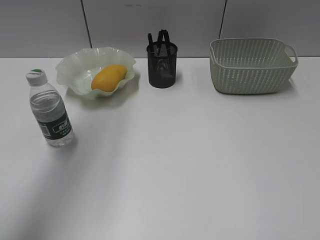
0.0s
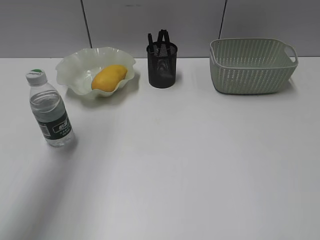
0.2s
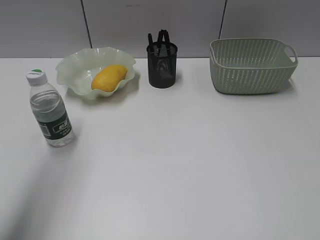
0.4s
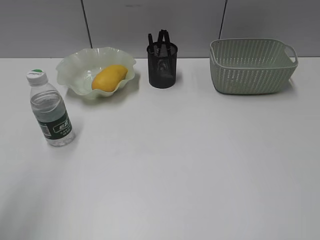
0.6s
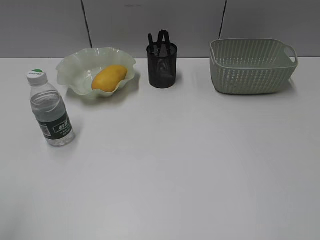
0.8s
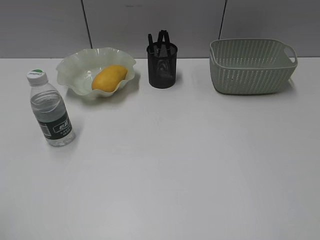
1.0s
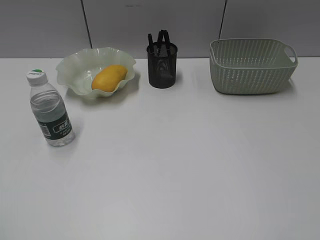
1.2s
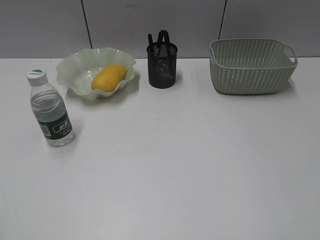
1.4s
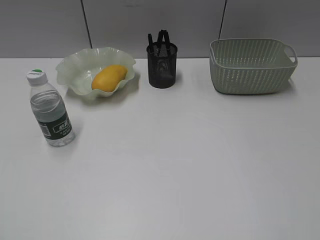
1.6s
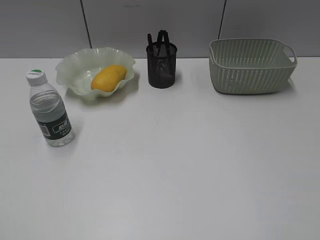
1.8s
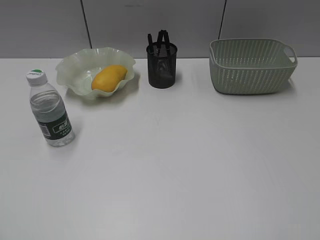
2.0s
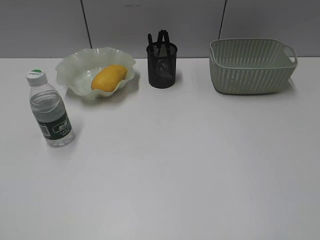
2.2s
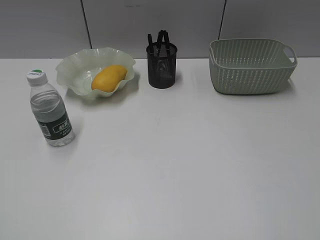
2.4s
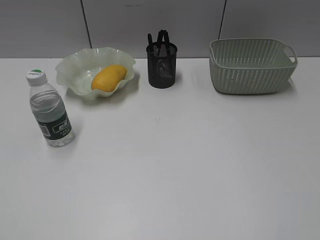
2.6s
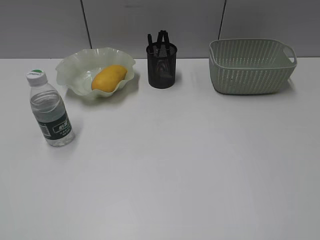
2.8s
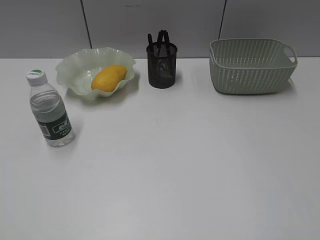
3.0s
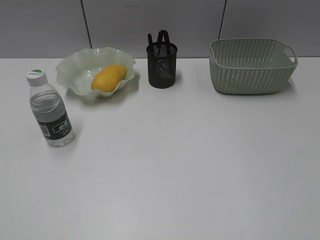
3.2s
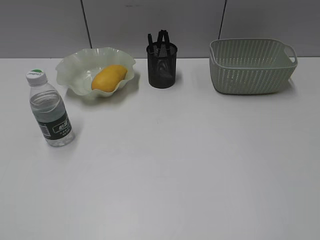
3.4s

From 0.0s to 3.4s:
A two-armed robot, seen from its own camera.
From 0.0s to 1.6s: The left gripper goes approximately 35 cm backward.

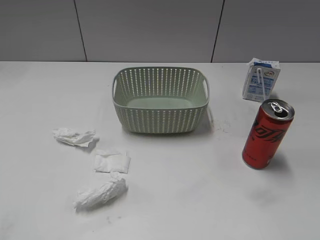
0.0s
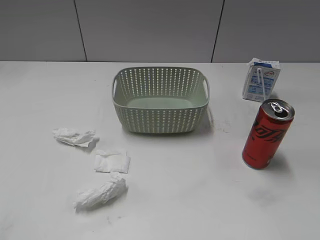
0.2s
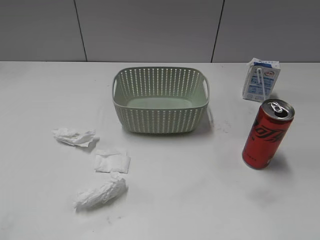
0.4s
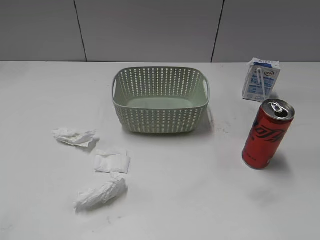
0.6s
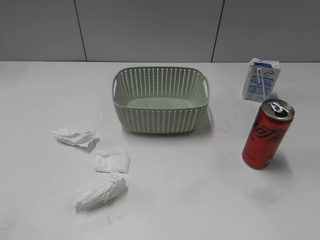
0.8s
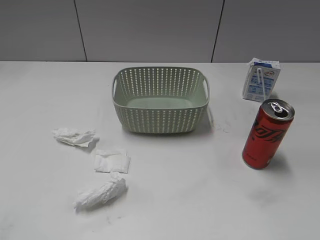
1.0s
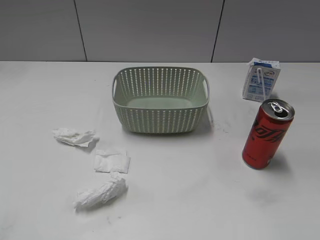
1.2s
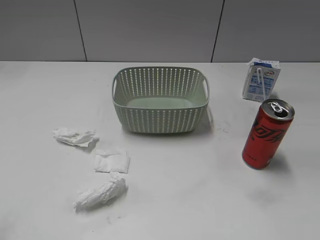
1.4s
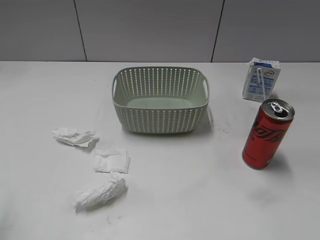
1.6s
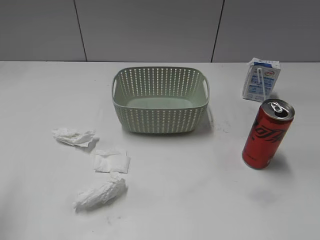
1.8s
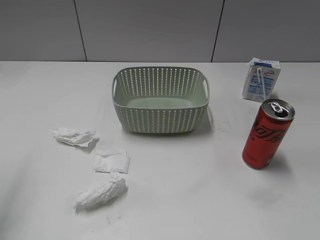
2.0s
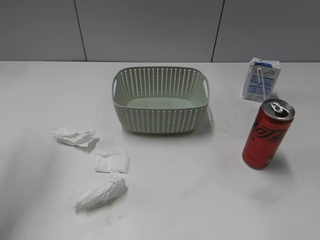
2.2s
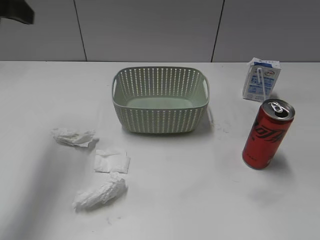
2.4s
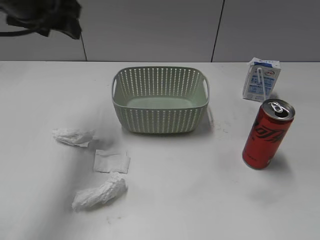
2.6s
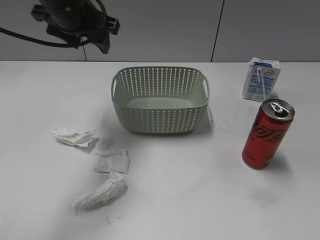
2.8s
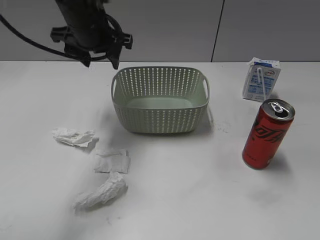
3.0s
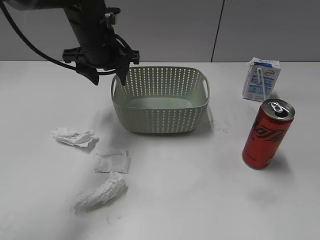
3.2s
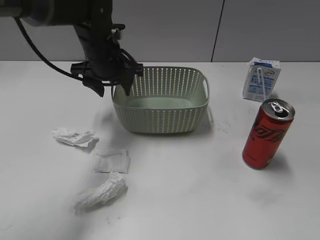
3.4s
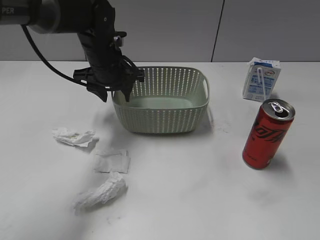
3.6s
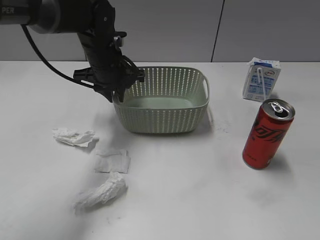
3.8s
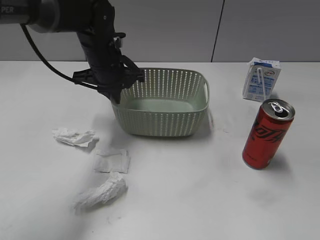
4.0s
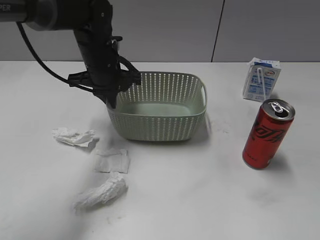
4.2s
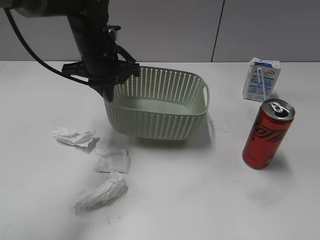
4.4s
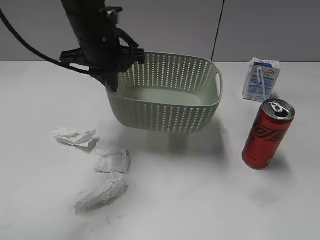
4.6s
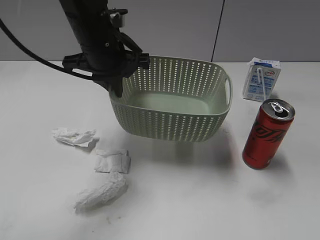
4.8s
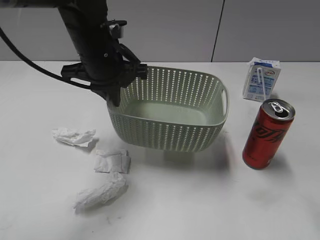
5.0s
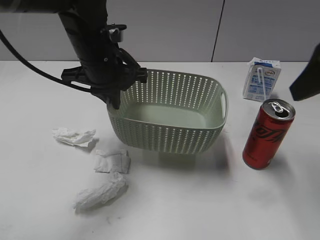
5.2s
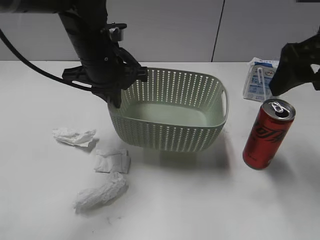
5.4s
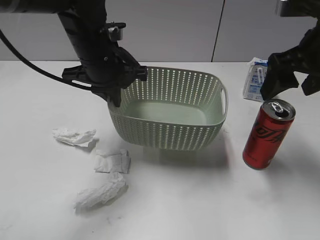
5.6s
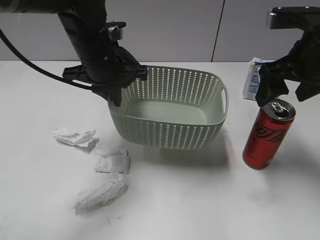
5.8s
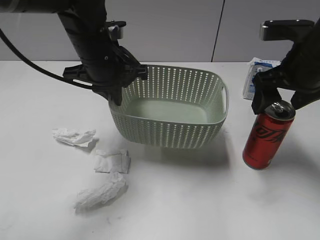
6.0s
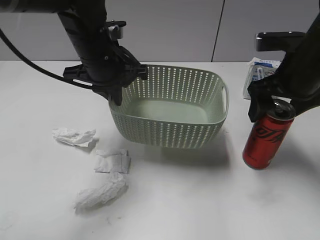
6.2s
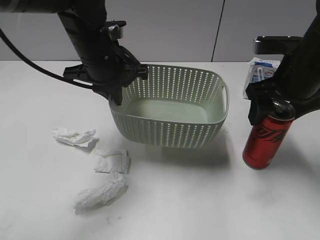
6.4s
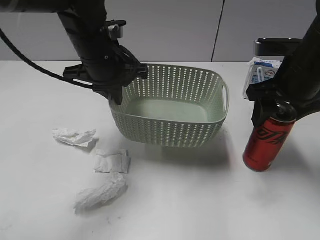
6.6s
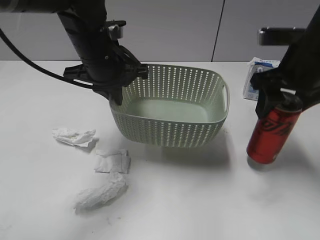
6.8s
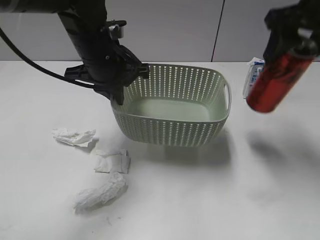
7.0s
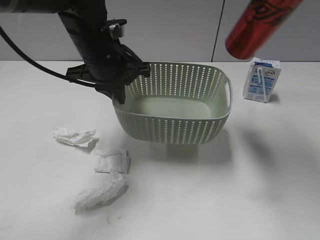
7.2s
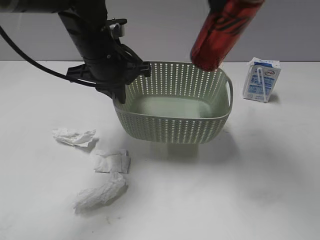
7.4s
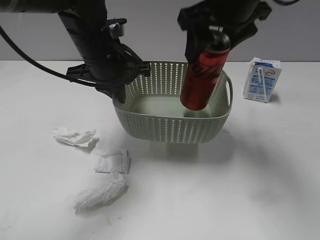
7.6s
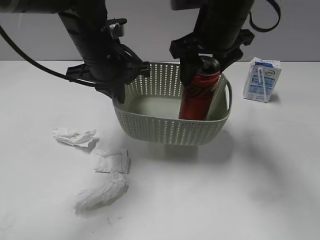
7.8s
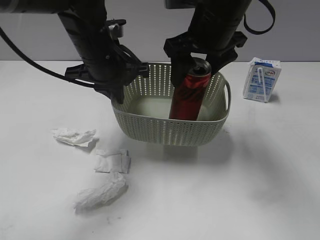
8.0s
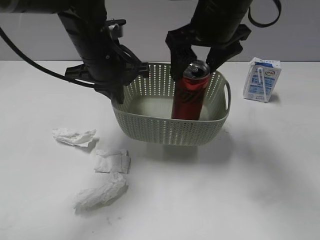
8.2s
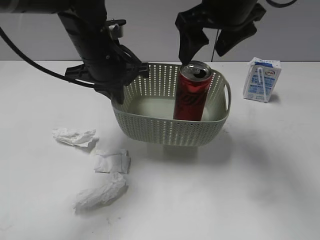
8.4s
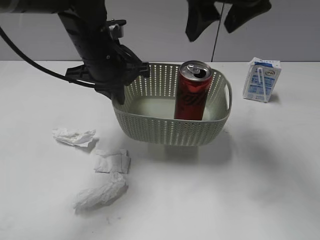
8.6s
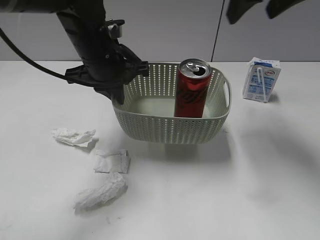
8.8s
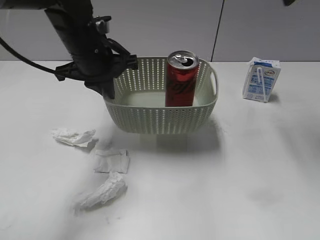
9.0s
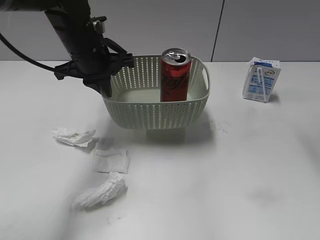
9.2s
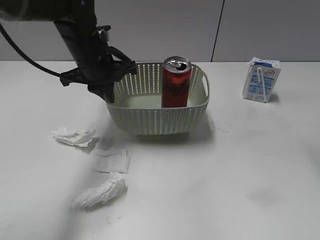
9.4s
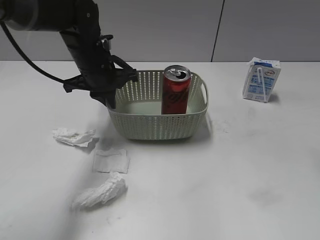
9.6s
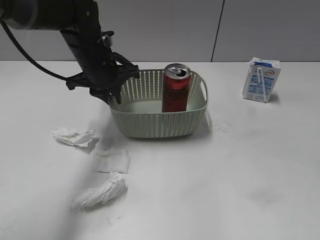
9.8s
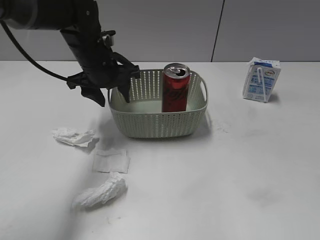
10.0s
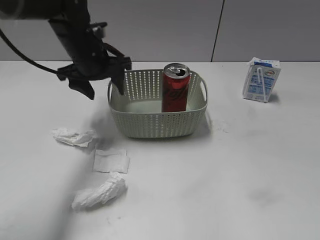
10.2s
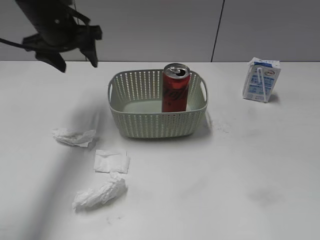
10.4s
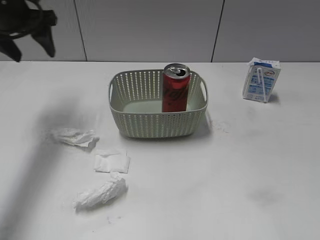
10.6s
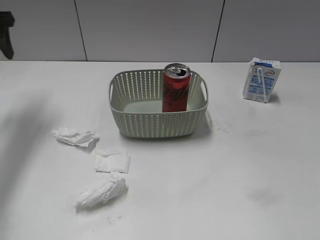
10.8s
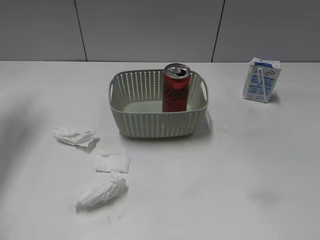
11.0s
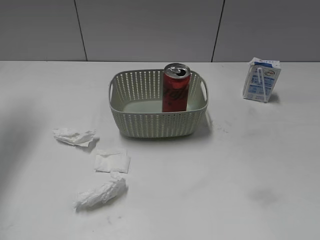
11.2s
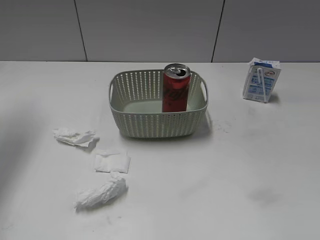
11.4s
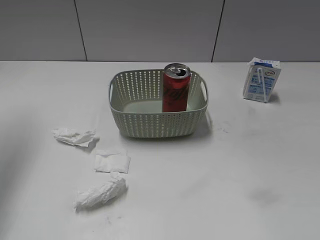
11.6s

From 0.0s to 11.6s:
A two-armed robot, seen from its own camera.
Step, from 2.4s to 3.8s: Grasp the basket with left gripper.
Step, from 4.0s to 5.0s: Lift the basket with left gripper.
Step, from 5.2s to 6.6s: Grasp the cola can with right gripper.
Step, from 6.8s to 8.2s: Place the cola can in the basket with right gripper.
Step, from 8.4s to 9.8s: Place the basket on the table with left gripper.
From 1.4s to 2.8s: The left gripper goes some 40 cm forward and to the right.
From 2.8s to 4.4s: The left gripper travels downward by some 10 cm, and closes up.
From 4.4s to 5.8s: The left gripper moves some 5 cm; the right gripper travels forward by approximately 30 cm, and opens.
From 5.8s to 7.2s: The right gripper is displaced upward by approximately 15 cm, and closes its fingers.
From 7.2s to 8.8s: The right gripper moves about 15 cm downward and comes back, and opens up.
From 8.8s to 10.2s: The left gripper travels forward by about 5 cm, and opens its fingers. Meanwhile the right gripper is displaced backward and to the right by approximately 20 cm.
From 10.2s to 11.6s: The right gripper travels backward and downward by about 15 cm; the left gripper shifts some 30 cm to the left and upward.

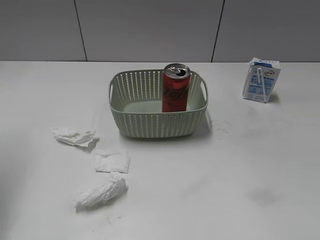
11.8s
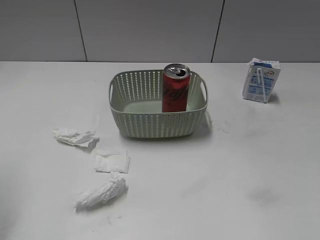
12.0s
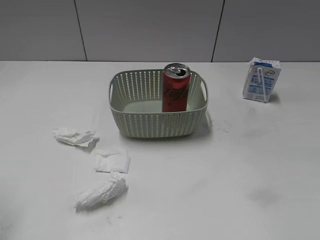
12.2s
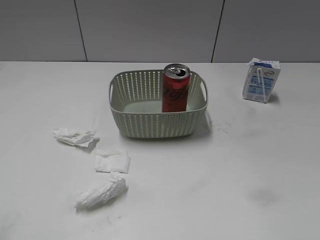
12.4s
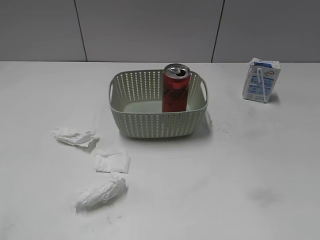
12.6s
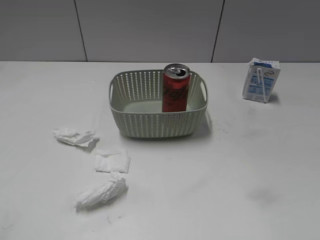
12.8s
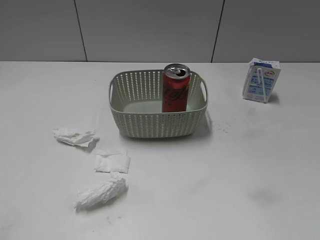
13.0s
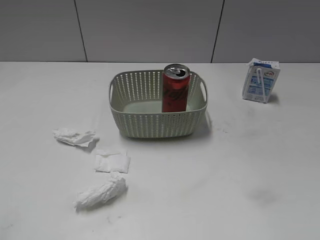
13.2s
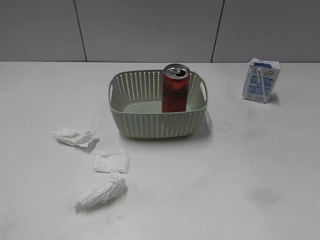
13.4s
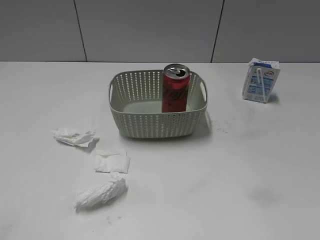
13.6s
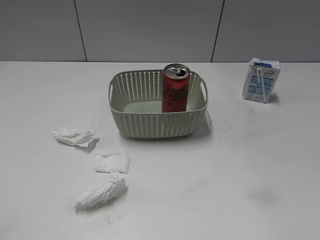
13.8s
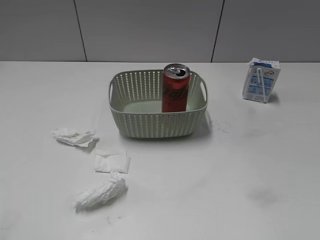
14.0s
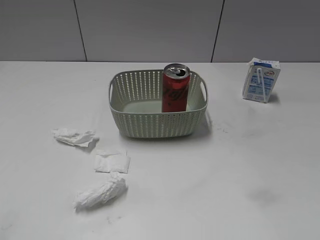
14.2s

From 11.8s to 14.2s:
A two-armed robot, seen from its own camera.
From 11.8s to 13.0s: The left gripper shifts approximately 30 cm backward and downward.

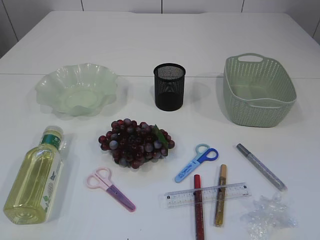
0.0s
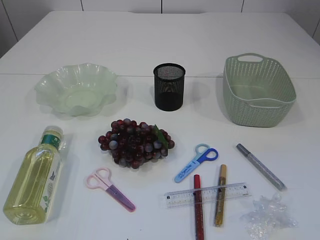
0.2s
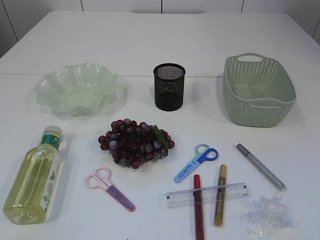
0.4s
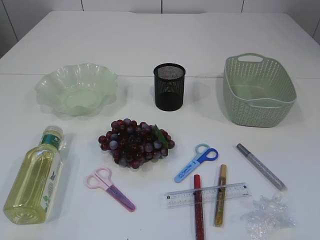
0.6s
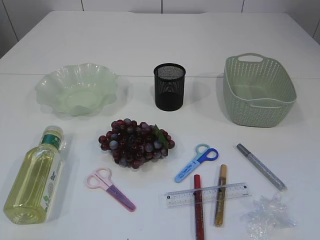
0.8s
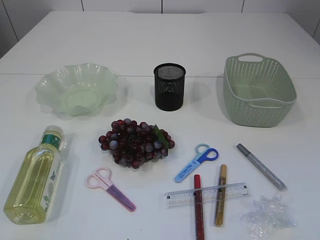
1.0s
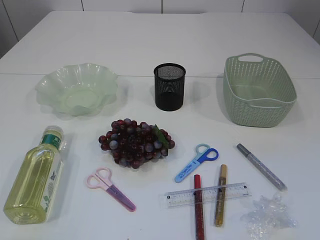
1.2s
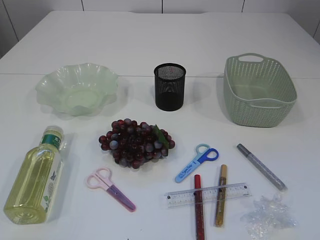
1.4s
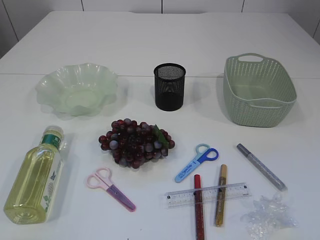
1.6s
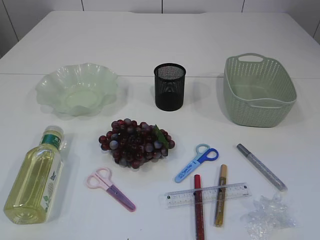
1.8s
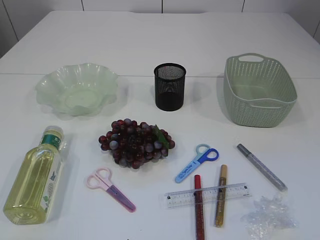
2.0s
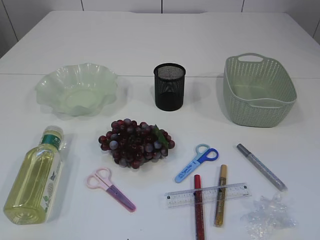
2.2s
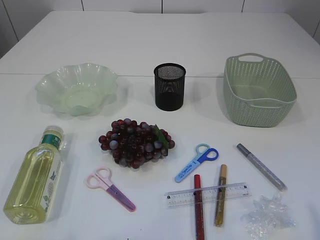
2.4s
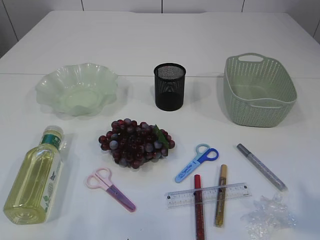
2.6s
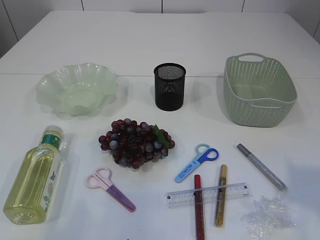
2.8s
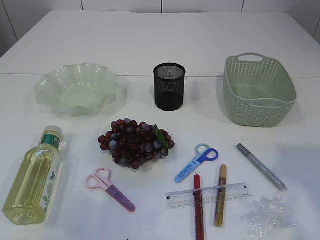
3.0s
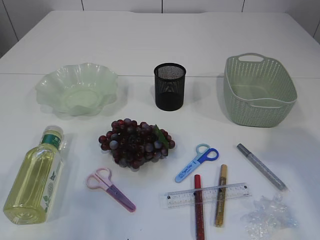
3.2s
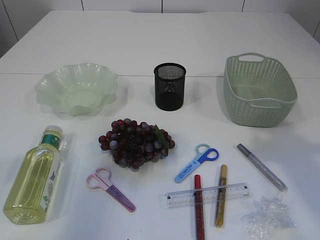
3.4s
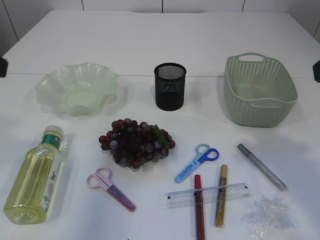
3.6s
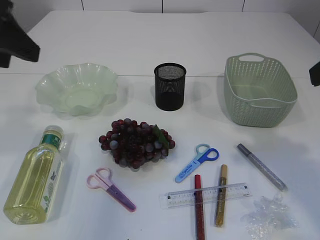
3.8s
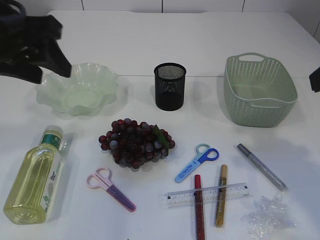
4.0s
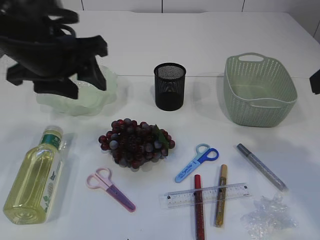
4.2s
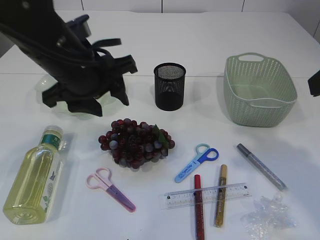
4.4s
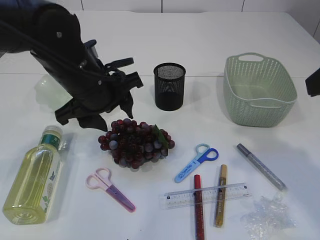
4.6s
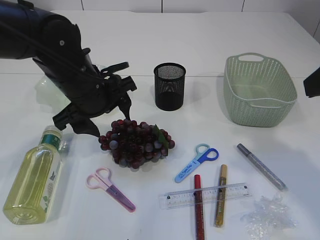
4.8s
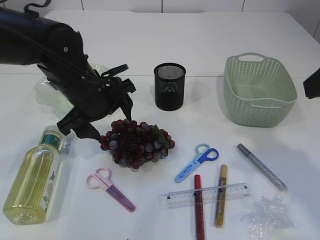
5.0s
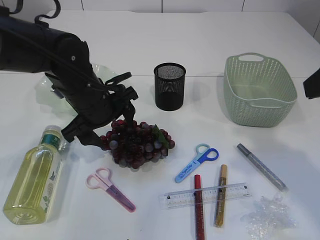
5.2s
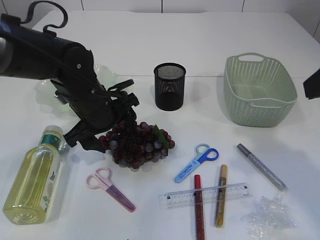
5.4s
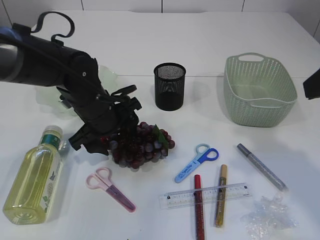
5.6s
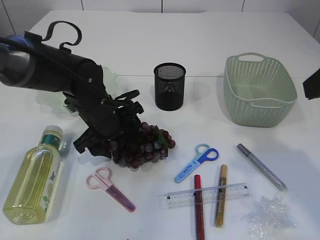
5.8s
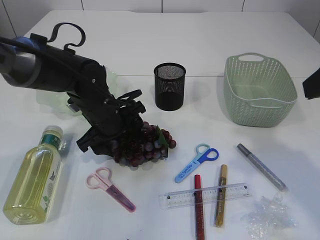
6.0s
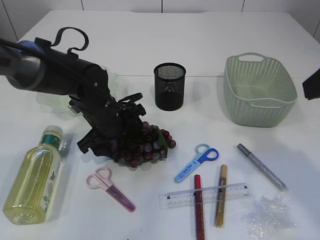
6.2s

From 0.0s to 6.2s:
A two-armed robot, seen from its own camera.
From 1.6s to 3.2s: The right gripper shifts some 20 cm forward and upward; the left gripper heads forward, covering some 15 cm.
From 3.2s to 4.6s: The left gripper shifts roughly 30 cm forward, to the right and downward. Meanwhile the right gripper shifts by some 5 cm.
From 4.6s to 6.2s: The left gripper heads downward, covering about 10 cm.
